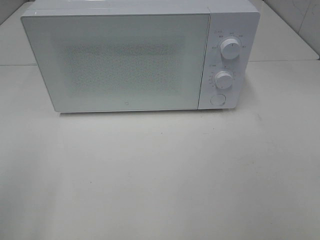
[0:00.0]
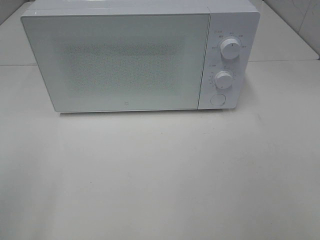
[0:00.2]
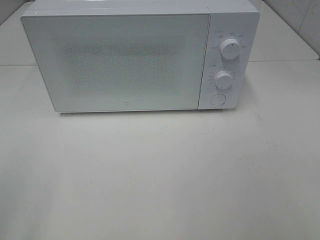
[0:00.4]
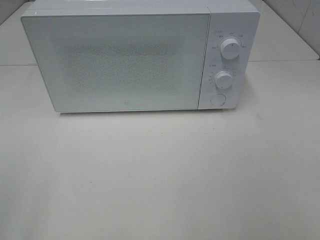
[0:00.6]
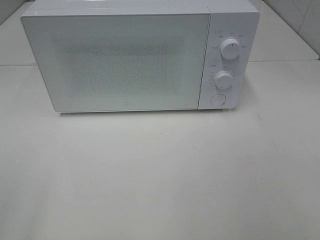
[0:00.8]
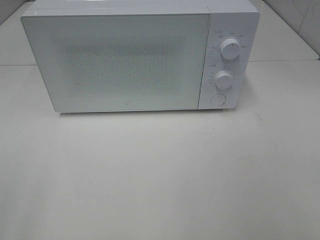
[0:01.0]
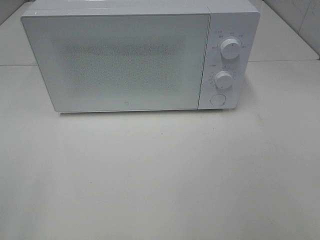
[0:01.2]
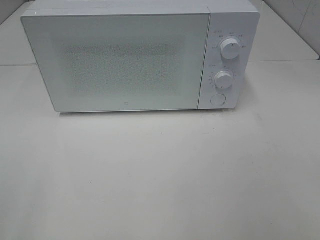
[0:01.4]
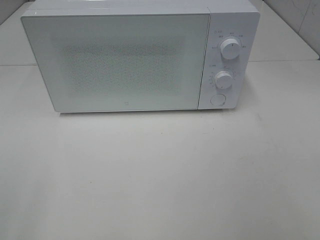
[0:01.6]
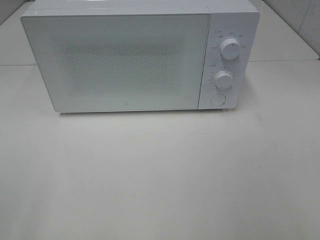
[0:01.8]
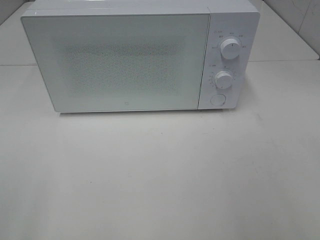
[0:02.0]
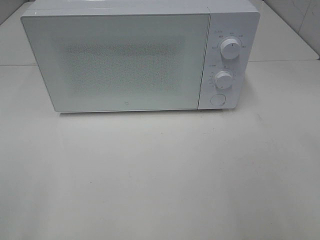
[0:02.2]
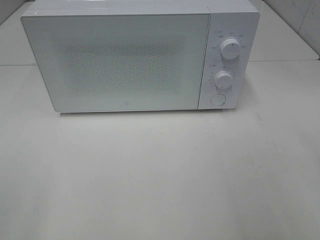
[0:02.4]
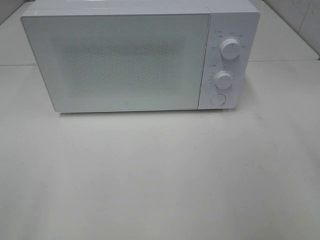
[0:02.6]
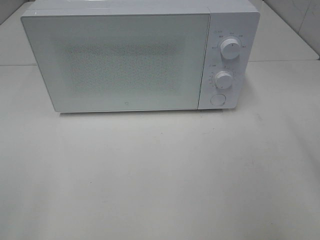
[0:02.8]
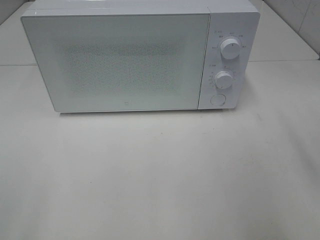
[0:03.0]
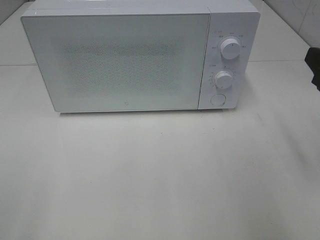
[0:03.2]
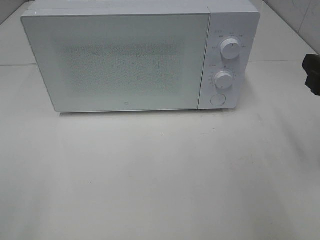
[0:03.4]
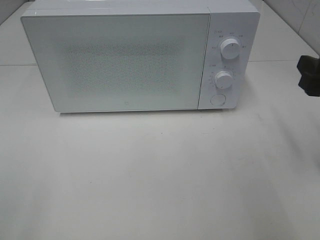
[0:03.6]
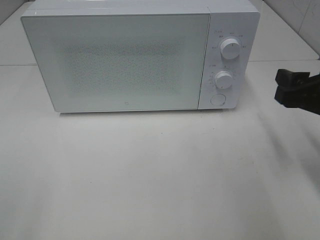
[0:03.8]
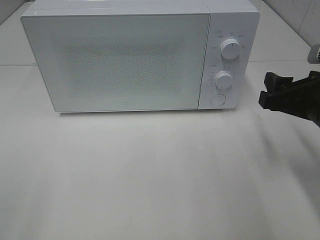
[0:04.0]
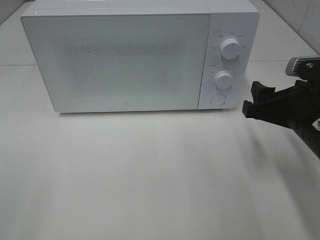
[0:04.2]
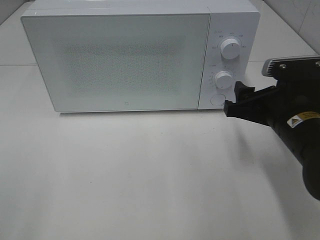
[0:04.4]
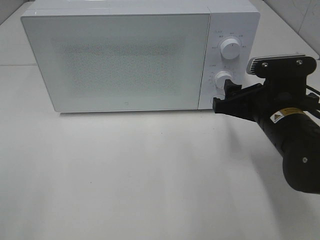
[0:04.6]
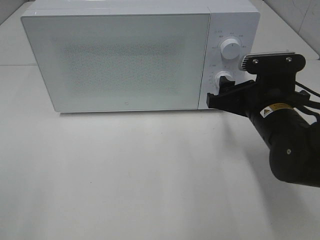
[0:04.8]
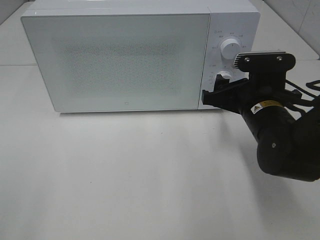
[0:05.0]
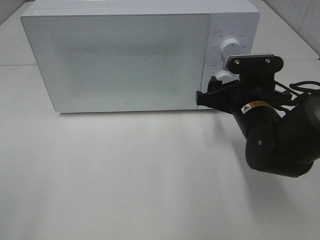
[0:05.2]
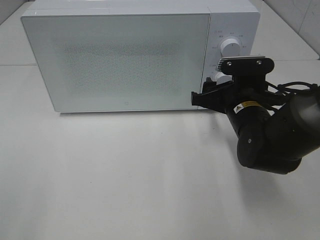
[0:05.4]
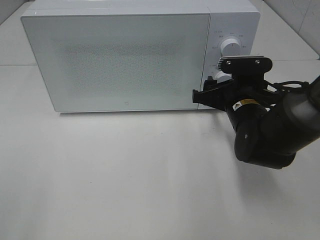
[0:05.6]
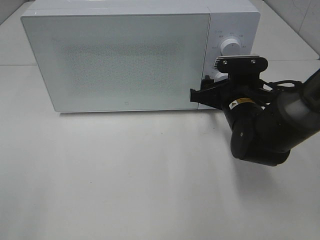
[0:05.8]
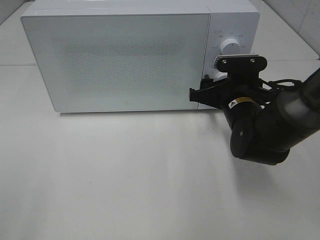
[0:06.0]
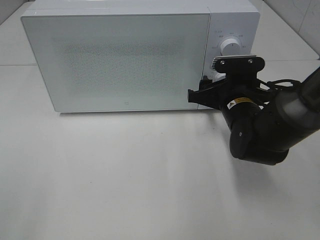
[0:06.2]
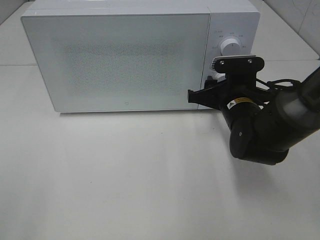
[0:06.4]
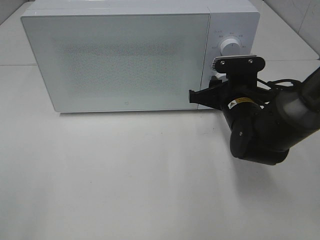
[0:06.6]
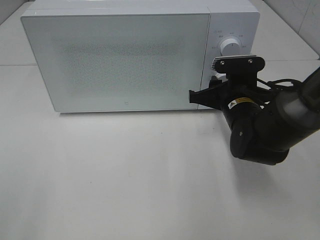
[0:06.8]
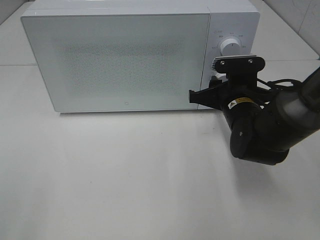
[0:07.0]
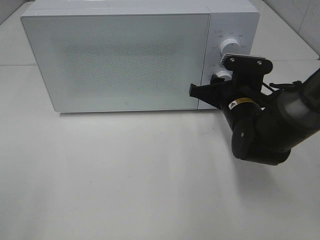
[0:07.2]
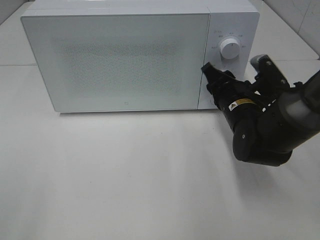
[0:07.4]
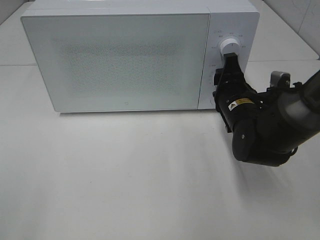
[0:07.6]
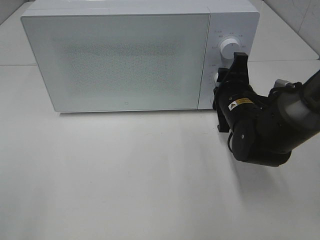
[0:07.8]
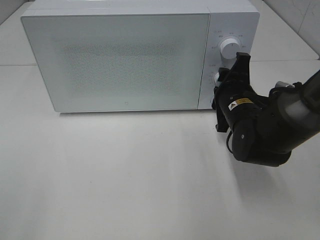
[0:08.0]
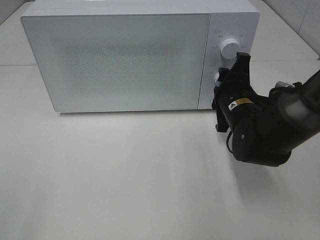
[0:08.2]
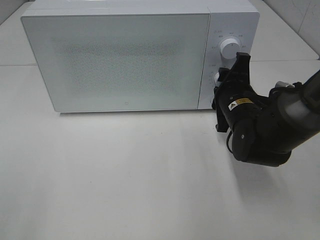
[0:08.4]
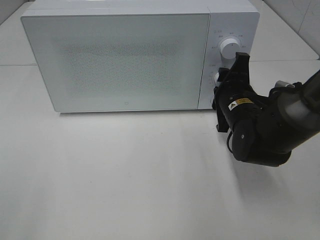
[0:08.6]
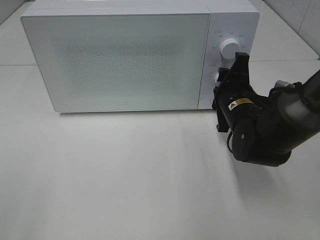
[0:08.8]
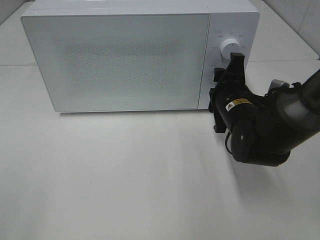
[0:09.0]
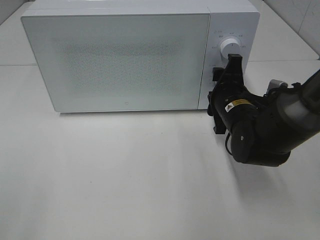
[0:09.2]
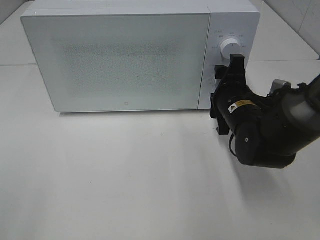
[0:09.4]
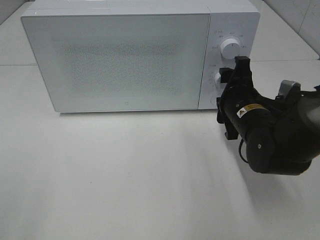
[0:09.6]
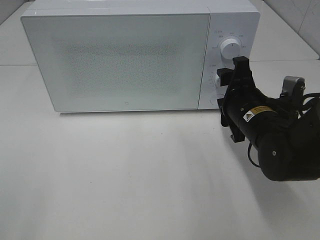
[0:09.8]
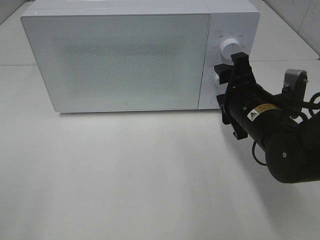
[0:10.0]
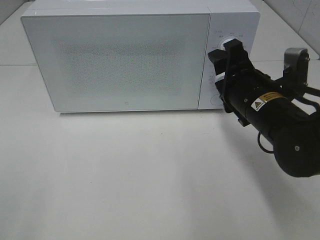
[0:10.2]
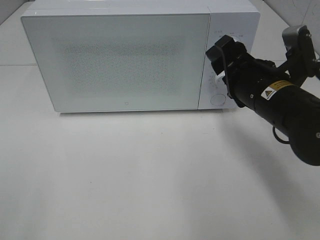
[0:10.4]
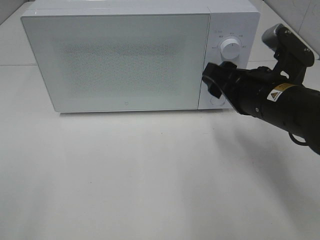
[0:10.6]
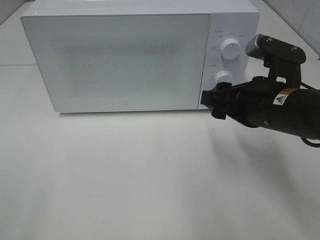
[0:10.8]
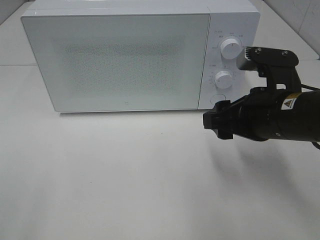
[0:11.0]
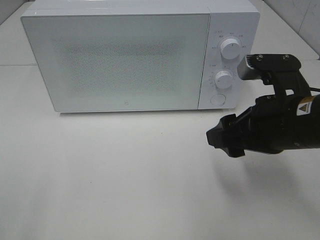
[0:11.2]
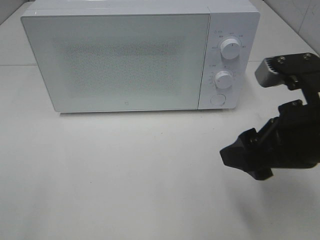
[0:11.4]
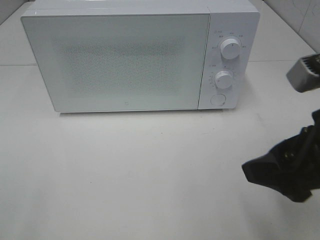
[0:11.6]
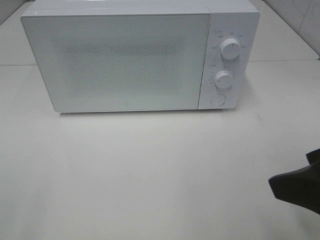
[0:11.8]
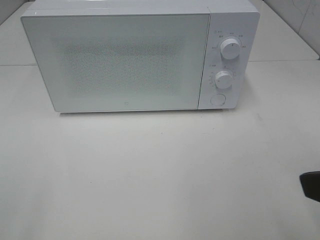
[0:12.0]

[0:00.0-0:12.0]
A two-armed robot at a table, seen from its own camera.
Task of the whole recording: Heat the burger.
Step, 0:00.0 to 0:09.0: Right hand: twist timer button.
0:03.0 to 0:04.4: The right gripper travels downward, to the left and forward by roughly 15 cm.
0:04.4 to 0:06.0: The right gripper is displaced forward by roughly 10 cm.
0:07.6 to 0:09.0: The grippers stay close to where they were, moving slightly.
0:09.0 to 0:10.4: The right gripper shifts roughly 10 cm upward and backward.
0:10.4 to 0:12.0: The right gripper shifts some 20 cm backward, upward and to the right.

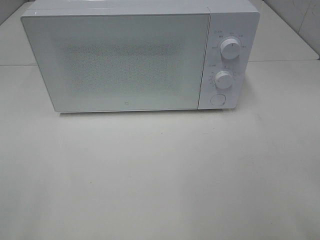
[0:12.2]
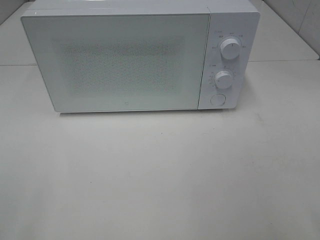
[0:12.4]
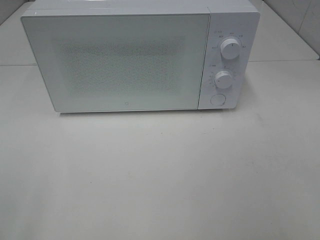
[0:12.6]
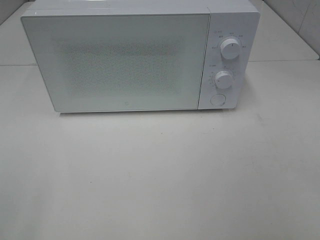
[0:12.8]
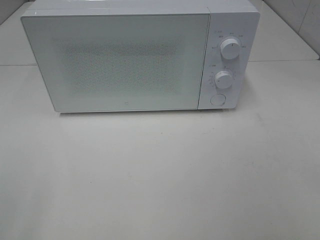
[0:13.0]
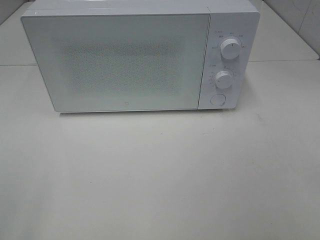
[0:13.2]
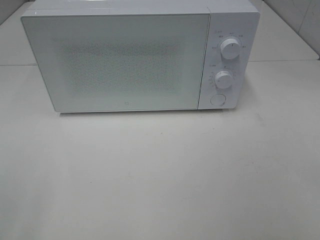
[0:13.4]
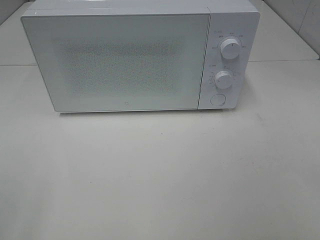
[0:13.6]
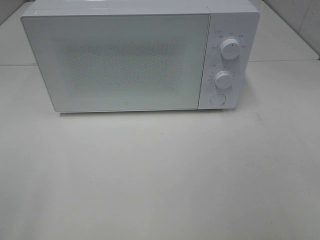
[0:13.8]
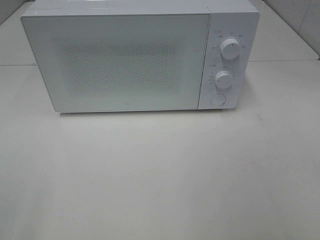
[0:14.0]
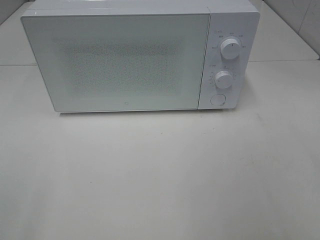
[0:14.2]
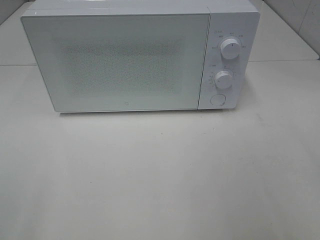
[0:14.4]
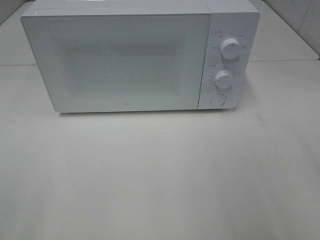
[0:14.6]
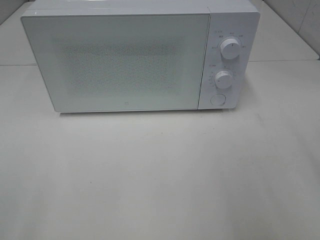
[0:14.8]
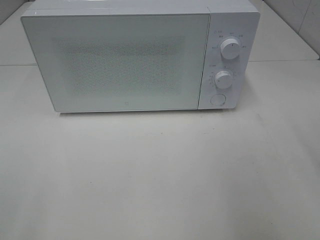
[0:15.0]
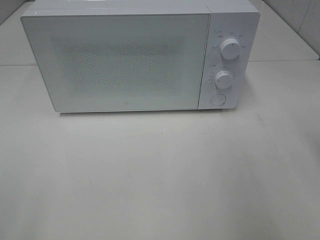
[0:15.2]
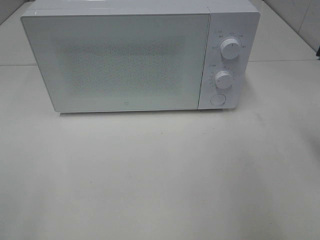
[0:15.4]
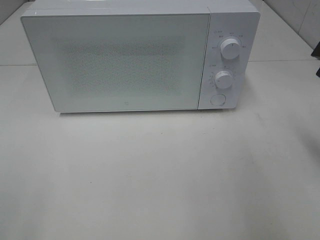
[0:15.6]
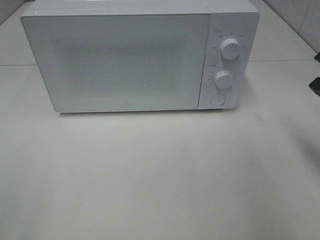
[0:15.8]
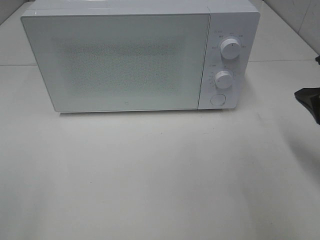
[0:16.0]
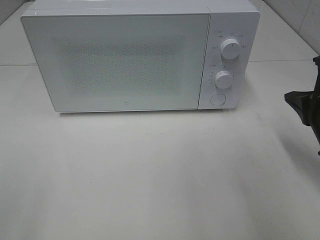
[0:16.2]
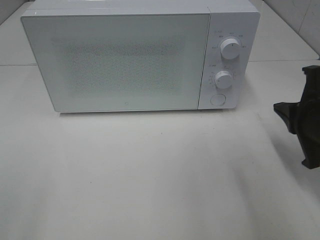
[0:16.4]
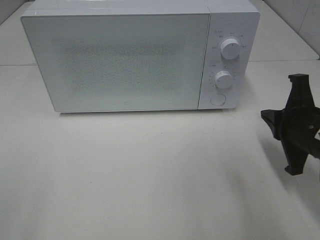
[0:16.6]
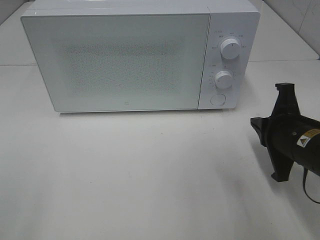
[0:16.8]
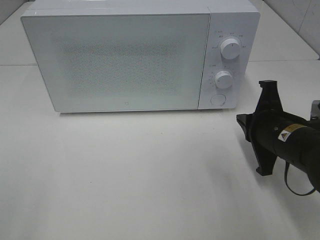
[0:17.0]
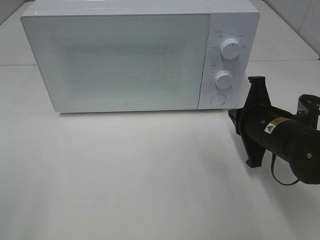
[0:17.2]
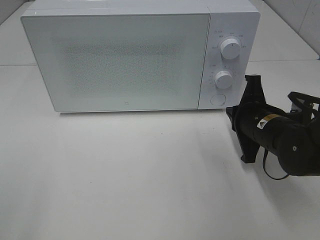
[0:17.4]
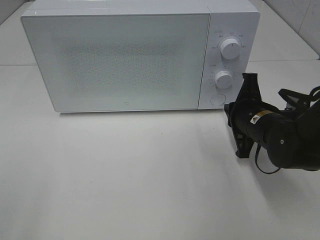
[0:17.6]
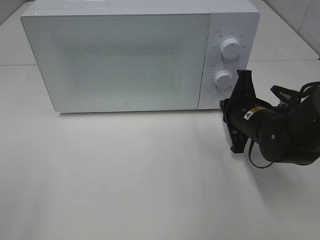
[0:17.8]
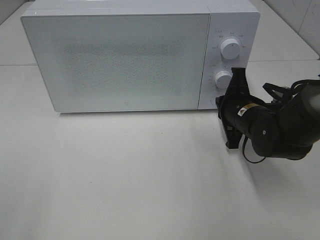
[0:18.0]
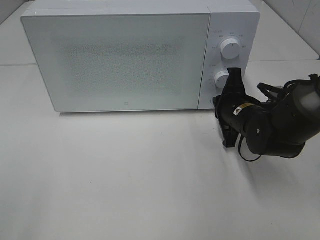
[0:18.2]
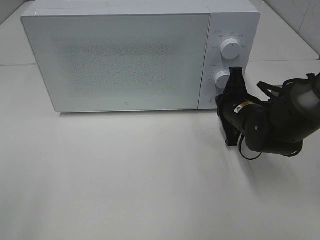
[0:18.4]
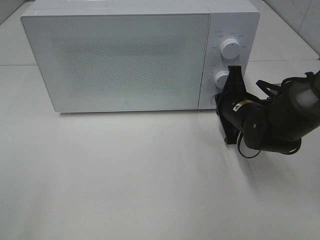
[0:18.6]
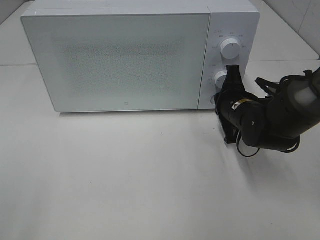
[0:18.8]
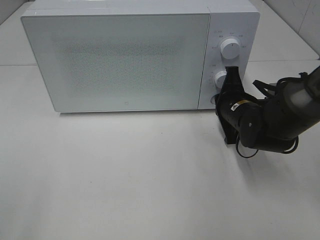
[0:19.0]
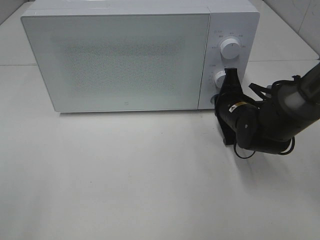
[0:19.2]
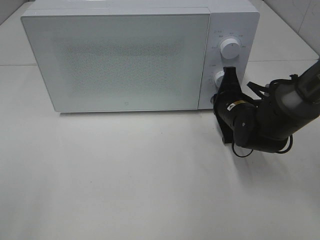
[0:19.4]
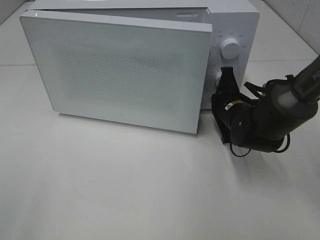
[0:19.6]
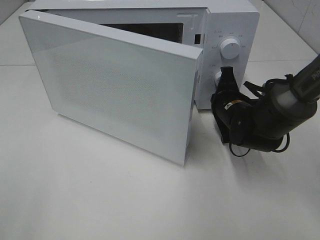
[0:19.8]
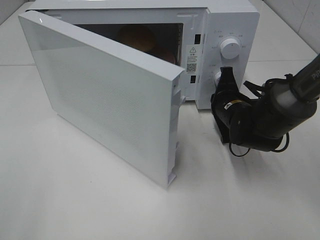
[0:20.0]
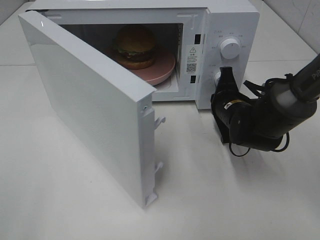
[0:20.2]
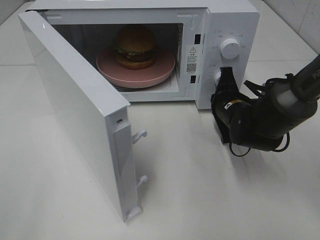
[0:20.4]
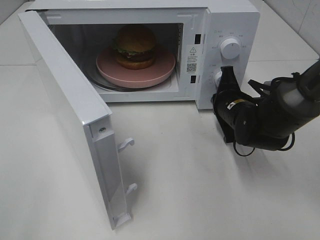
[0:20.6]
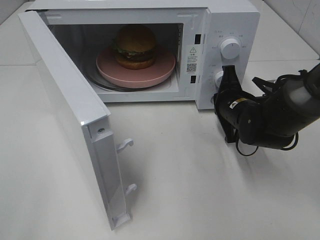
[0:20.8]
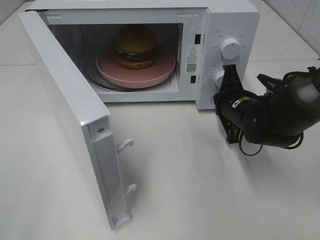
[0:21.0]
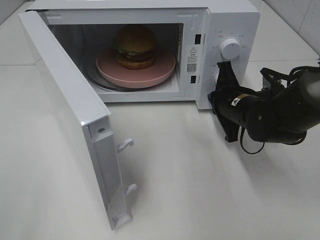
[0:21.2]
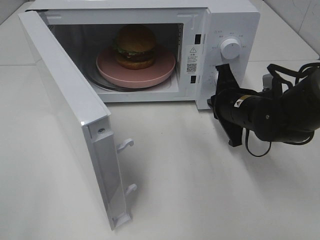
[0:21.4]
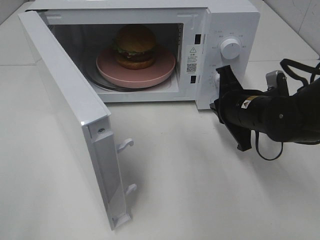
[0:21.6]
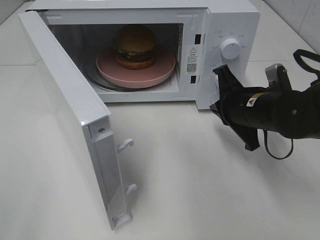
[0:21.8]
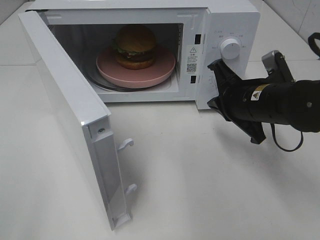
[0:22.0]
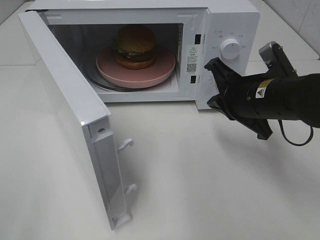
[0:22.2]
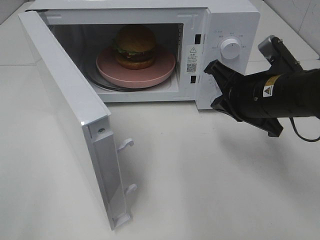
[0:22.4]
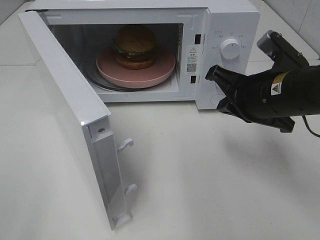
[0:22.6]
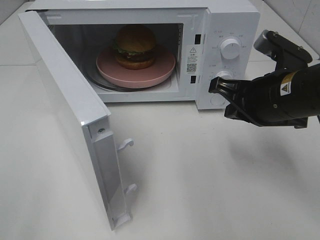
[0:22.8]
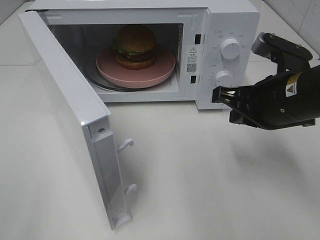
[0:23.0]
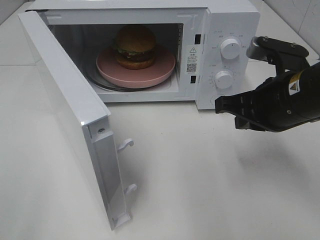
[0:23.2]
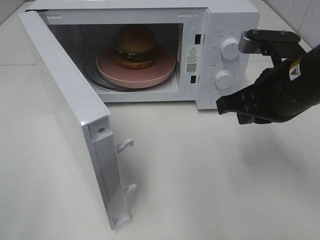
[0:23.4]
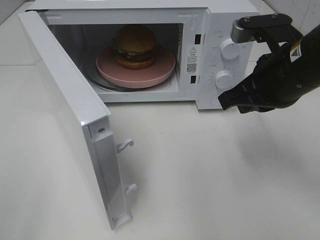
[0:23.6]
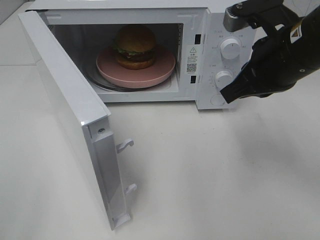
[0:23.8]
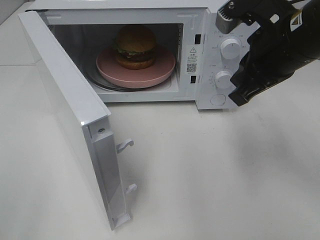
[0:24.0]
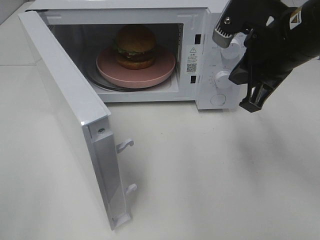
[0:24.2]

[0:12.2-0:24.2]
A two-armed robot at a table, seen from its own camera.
Task of the whole recording: Heat the burger.
Step, 0:12.2 to 0:21.0: Right hand: press the switch.
0:15.2 to 0:16.6: The right gripper shifts roughly 15 cm downward.
0:16.6 to 0:18.2: The right gripper is displaced forward, to the left and downward by roughly 15 cm.
0:18.2 to 0:19.8: The grippers stay close to where they were, moving slightly.
0:21.2 to 0:22.6: The right gripper goes roughly 10 cm upward and backward.
0:22.6 to 0:24.2: The right gripper heads upward, covering about 10 cm.
